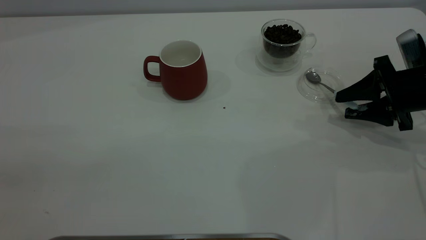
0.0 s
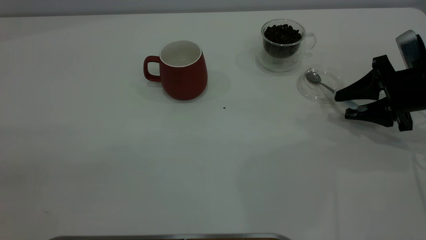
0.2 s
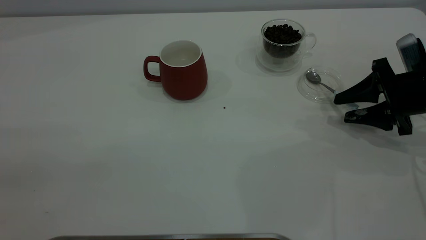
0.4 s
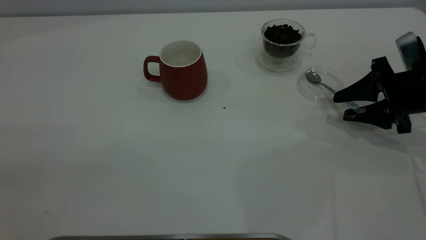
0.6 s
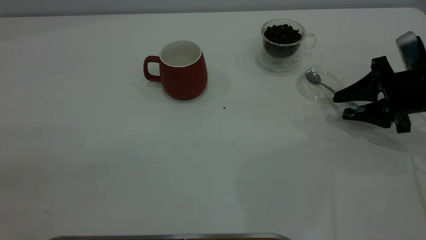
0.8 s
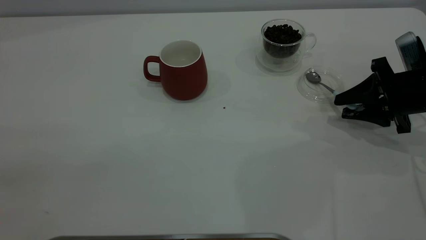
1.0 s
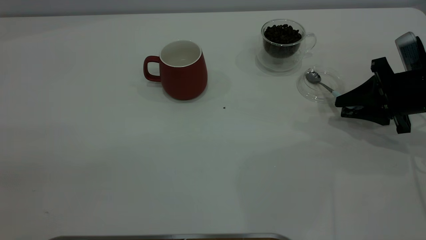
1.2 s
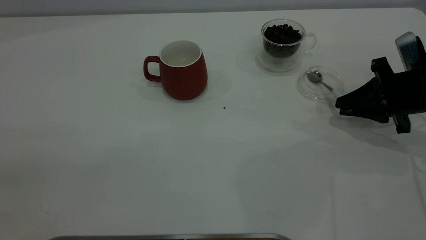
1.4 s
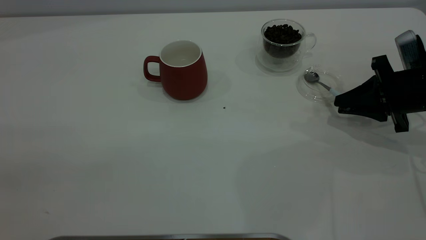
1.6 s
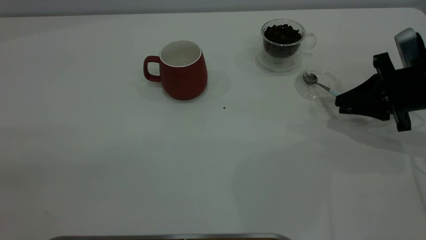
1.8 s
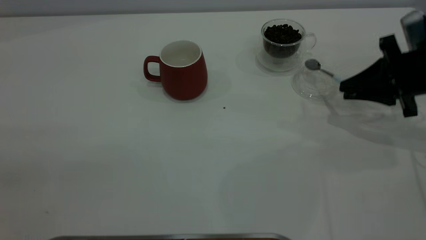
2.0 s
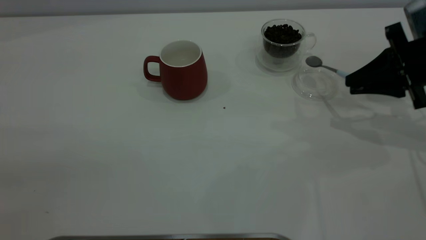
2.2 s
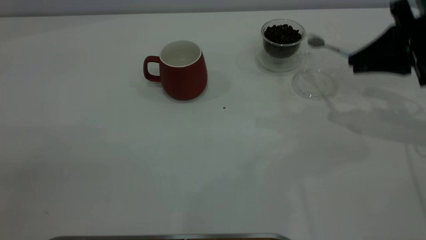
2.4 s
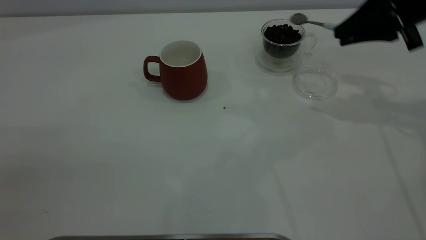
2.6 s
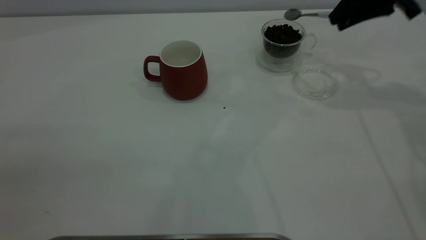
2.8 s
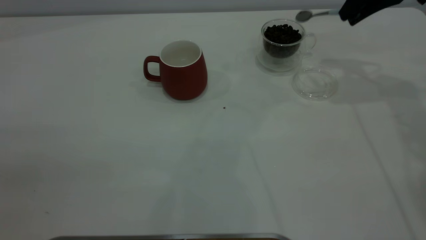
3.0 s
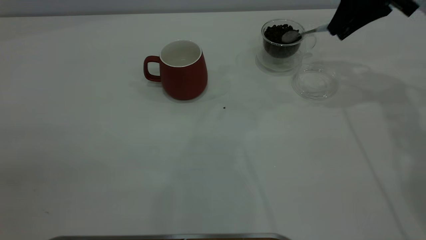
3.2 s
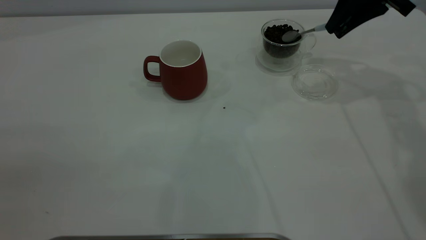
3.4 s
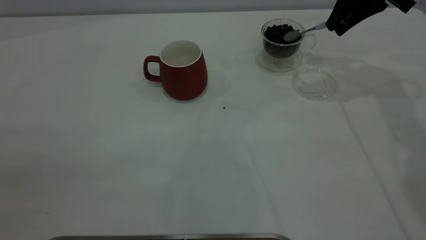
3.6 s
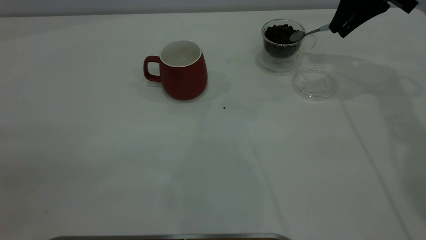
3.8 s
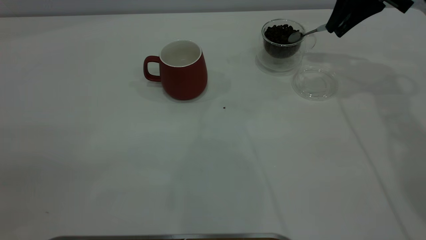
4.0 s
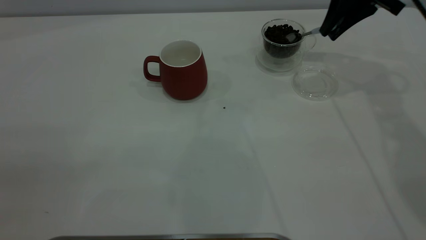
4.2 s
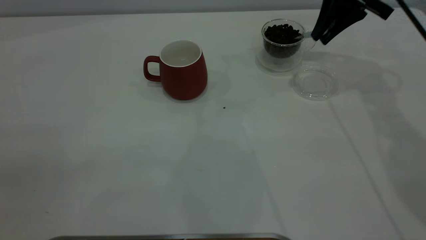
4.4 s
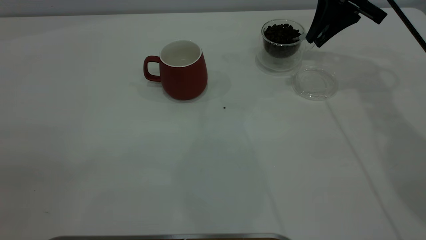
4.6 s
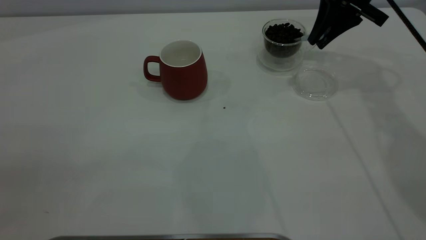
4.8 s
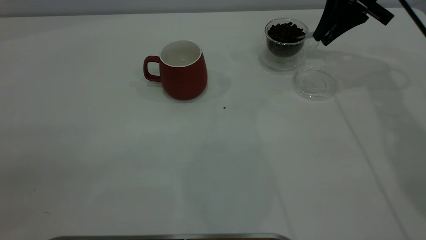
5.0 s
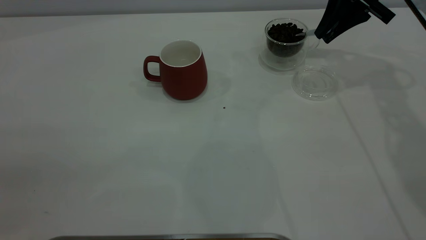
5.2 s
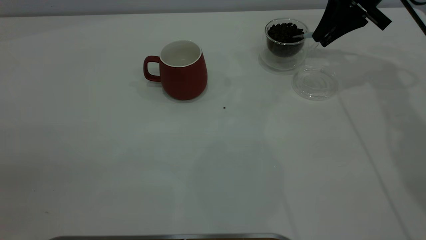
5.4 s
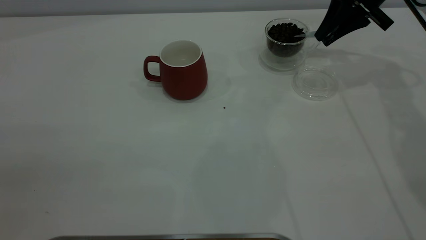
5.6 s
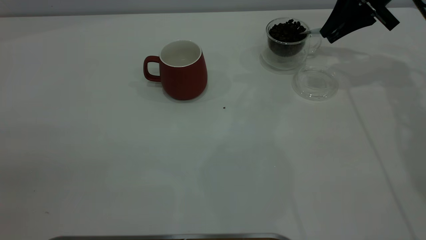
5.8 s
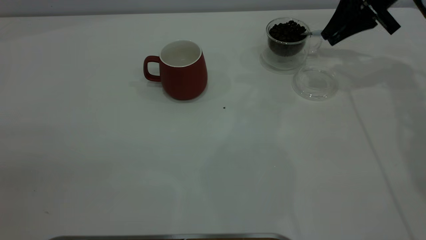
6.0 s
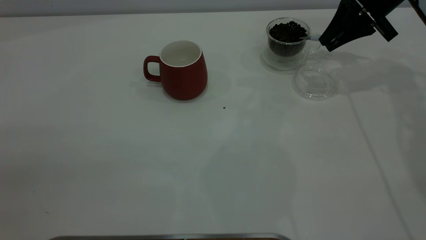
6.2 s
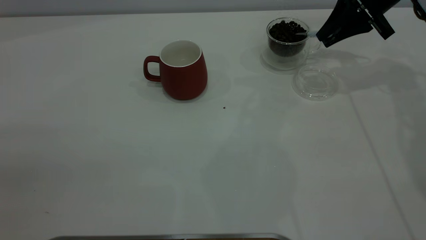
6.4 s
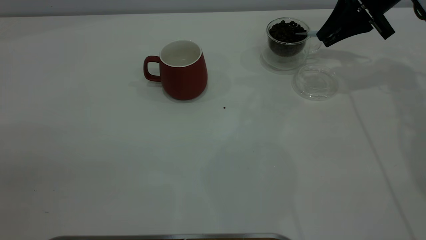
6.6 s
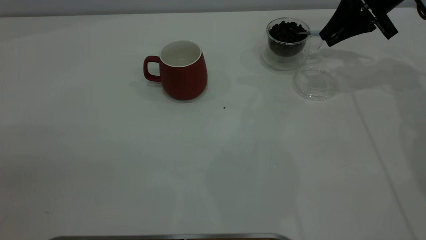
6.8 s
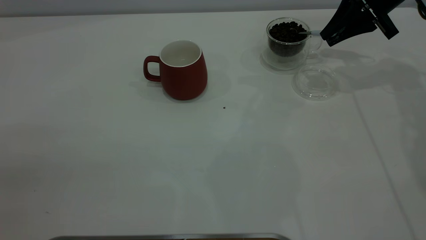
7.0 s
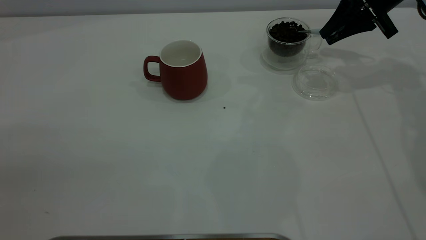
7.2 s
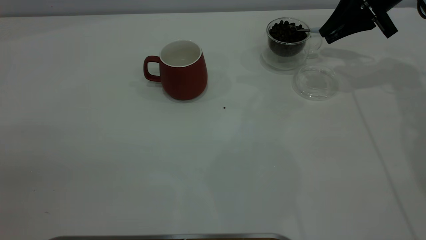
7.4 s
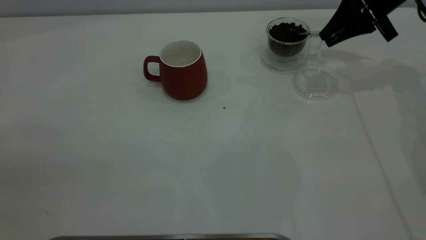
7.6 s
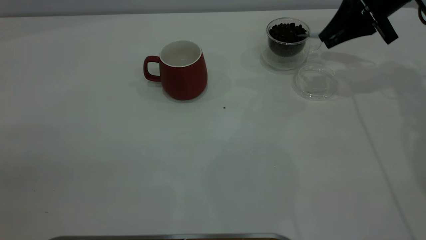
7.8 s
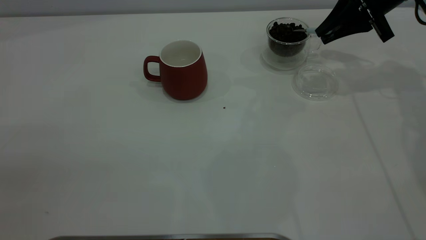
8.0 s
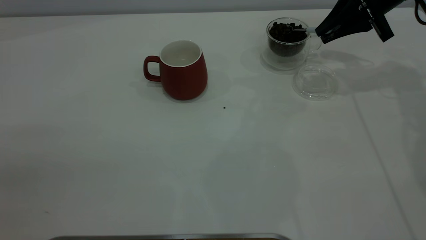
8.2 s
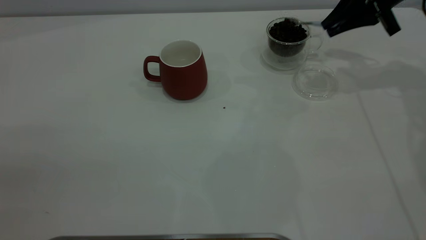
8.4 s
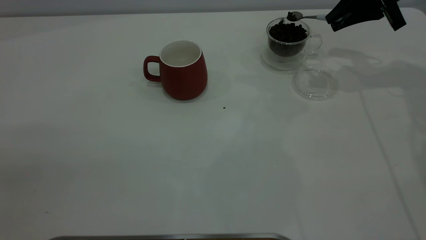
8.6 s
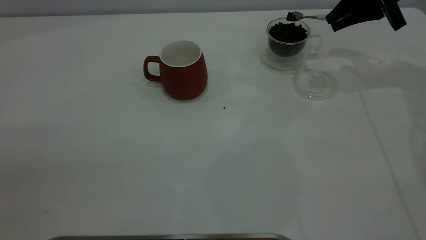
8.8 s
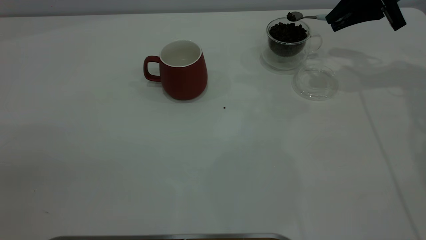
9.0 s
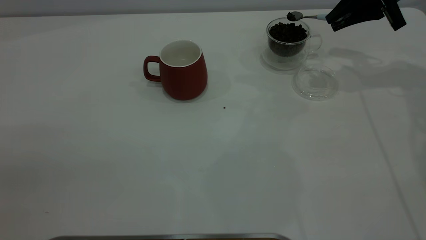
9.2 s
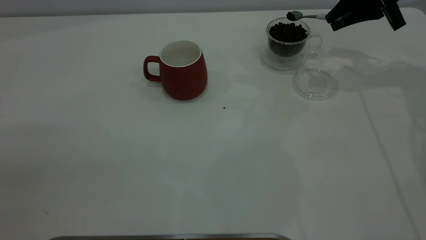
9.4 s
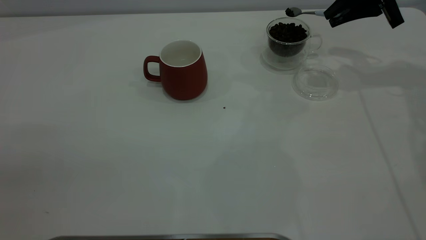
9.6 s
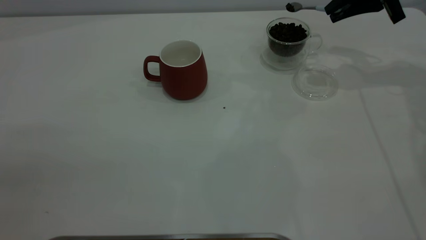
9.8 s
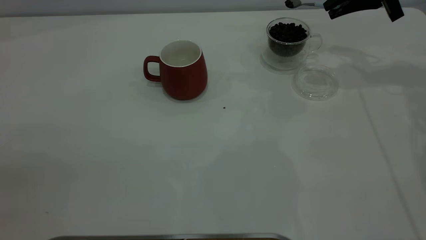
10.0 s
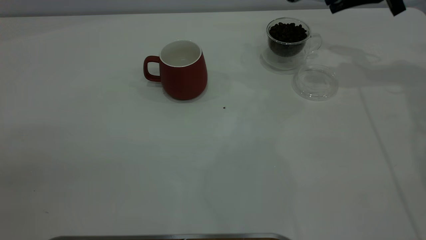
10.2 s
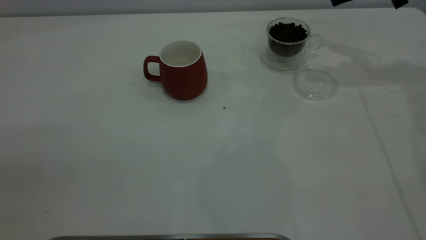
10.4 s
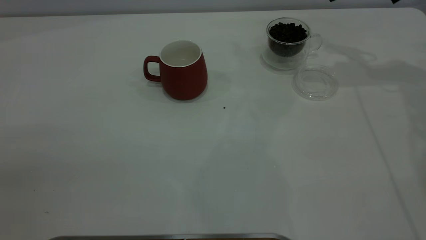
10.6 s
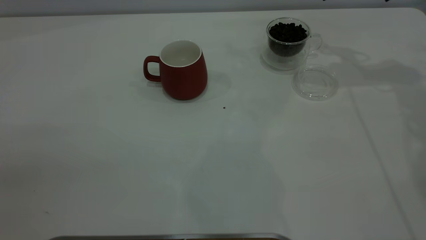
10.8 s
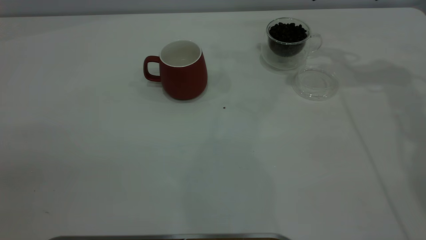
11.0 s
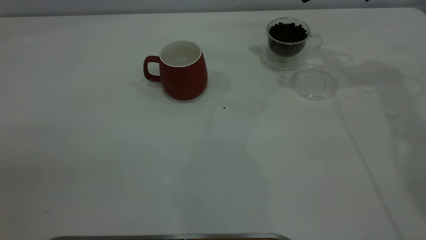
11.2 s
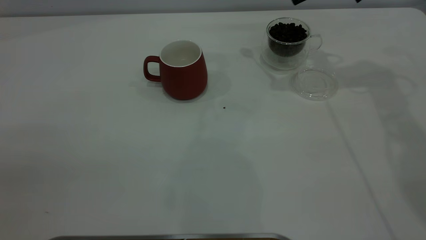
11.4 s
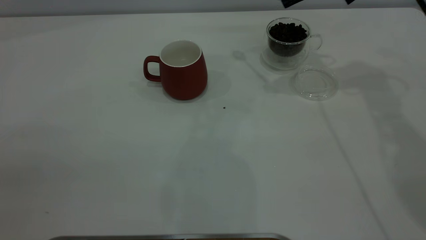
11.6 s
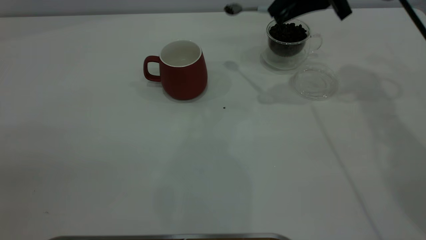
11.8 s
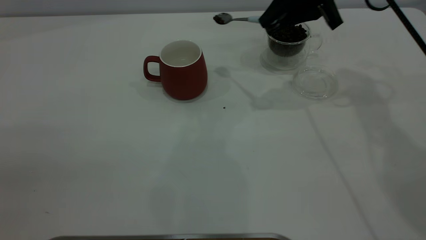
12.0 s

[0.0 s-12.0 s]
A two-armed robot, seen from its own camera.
Task of the whole recording: the left gripper place the red cup in the center of the table, the right gripper take the blue spoon from the cup lid and scoop out the coffee beans from the coffee cup and put them into the red cup, the right gripper put the spoon back into the cup lid.
Step, 0.0 to 2.0 s: Pick up the spoon.
0.0 to 1.6 s: The right gripper closes its fingers.
1.6 to 3.0 s: The right gripper goes approximately 20 cm upward and forward.
3.0 to 4.4 s: The right gripper moves roughly 5 cm.
4.4 to 6.0 s: The right gripper shifts by approximately 5 cm.
6.0 to 10.4 s: The grippers move only a little.
10.4 to 12.0 s: The right gripper is displaced to the left by roughly 10 cm.

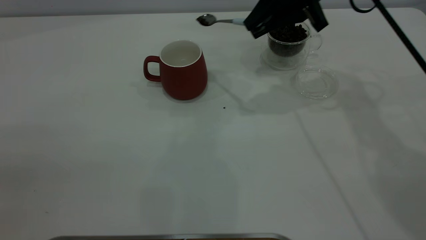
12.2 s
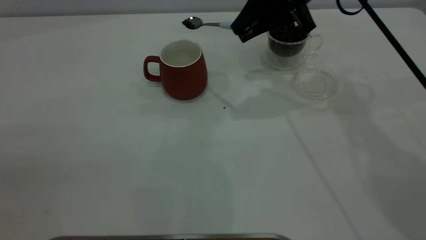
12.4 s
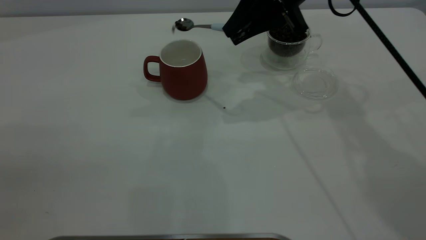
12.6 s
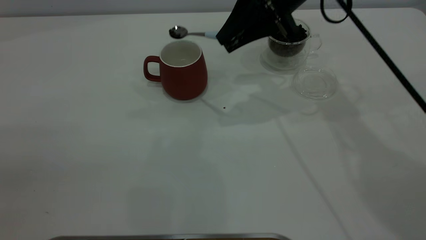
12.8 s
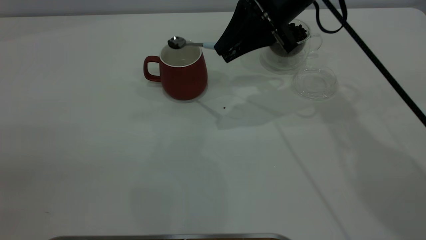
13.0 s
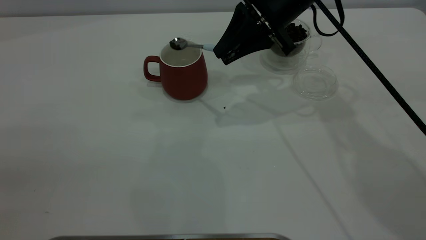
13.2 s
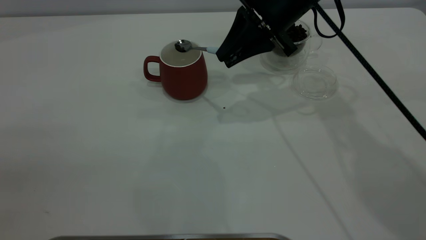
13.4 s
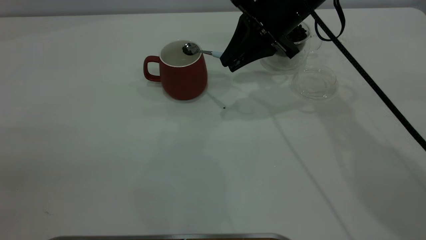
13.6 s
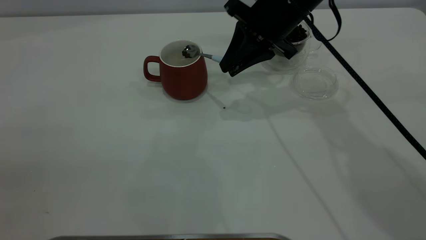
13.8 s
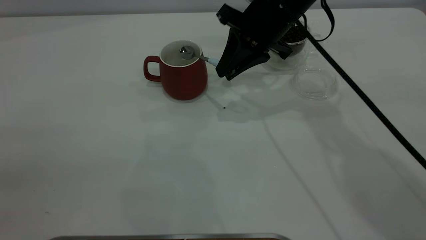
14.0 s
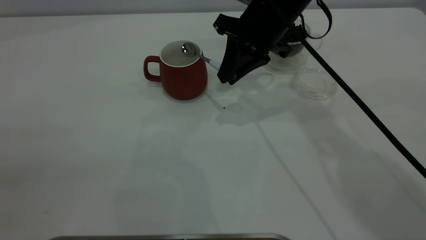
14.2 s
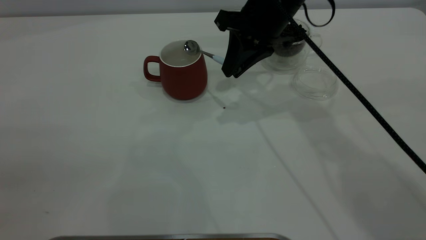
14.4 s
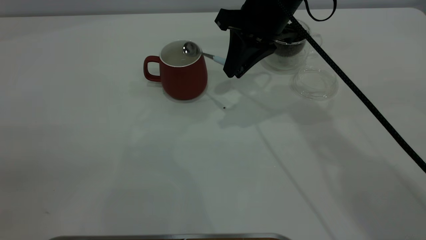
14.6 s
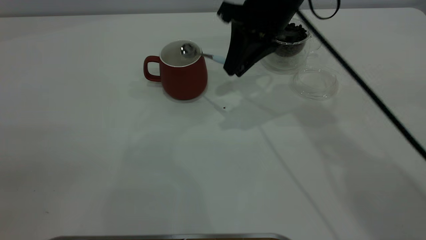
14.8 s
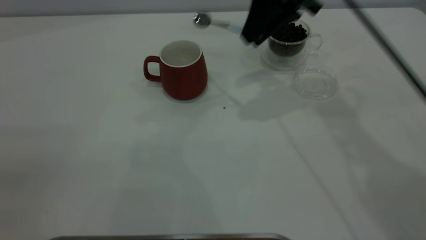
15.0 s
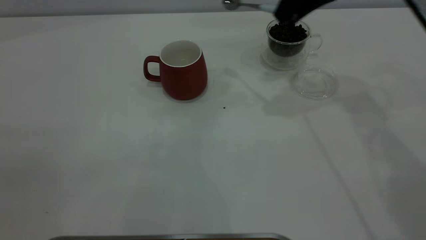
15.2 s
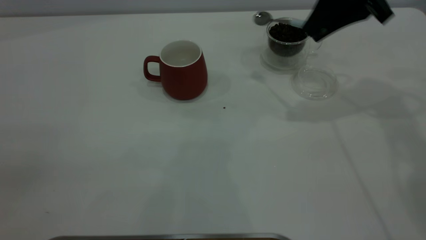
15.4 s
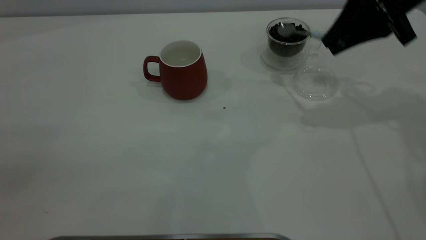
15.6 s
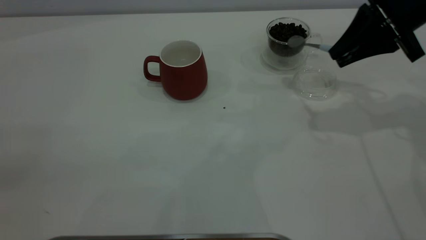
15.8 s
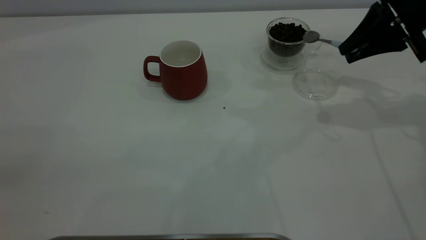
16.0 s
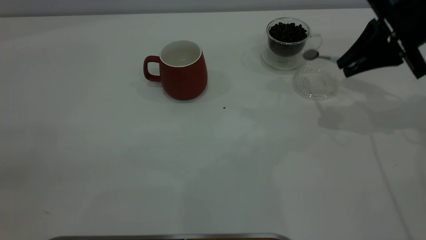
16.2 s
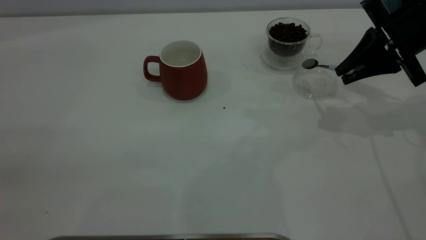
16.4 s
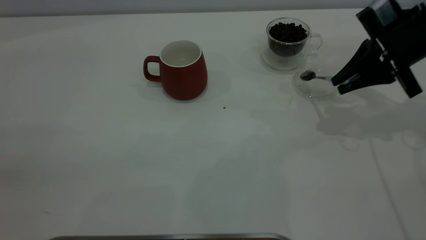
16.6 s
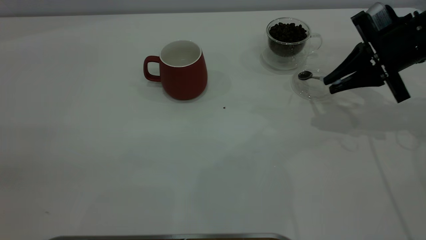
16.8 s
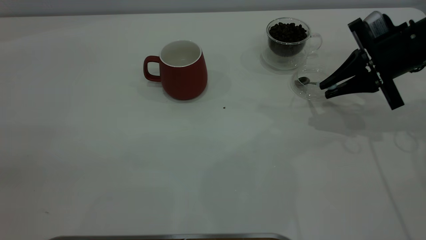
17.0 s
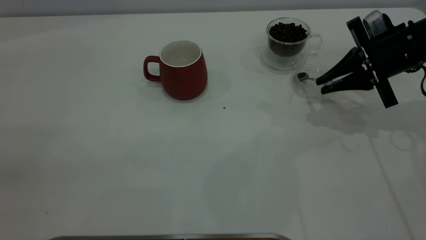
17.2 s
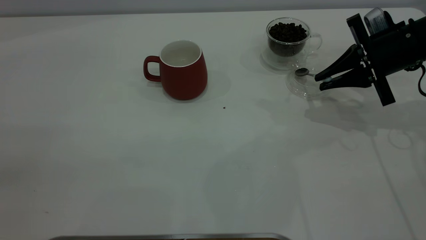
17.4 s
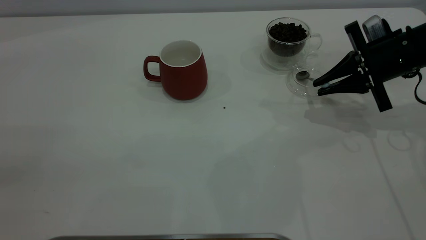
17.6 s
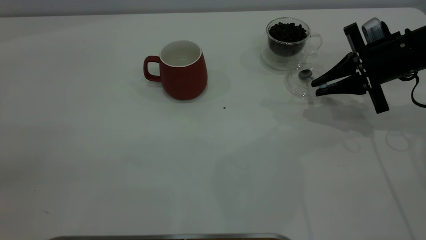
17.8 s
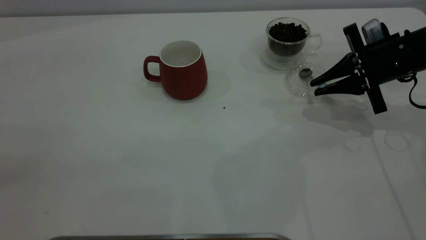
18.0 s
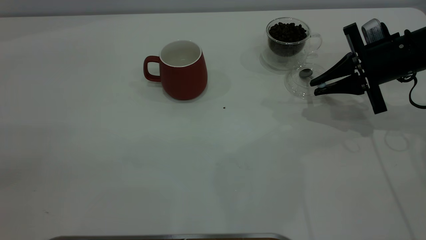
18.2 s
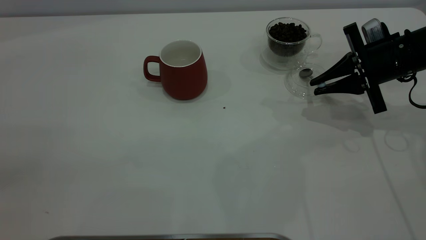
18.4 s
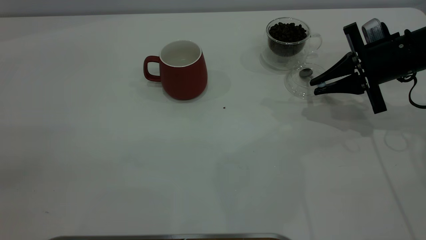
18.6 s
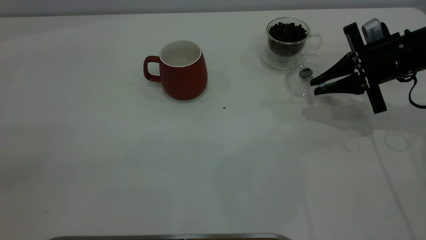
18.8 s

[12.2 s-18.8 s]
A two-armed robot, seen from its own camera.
Task of the whole recording: the left gripper place the red cup in the center of the table, the right gripper take the blue spoon from the cup lid and scoop out the coffee beans from the coffee cup and put them into the red cup, the right gripper put the spoon back into the cup lid.
Step, 12.2 to 14.8 s: Scoop a spoonful of beans into the cup.
12.2 to 13.8 s: The right gripper changes place by about 5 cm.
13.8 to 15.4 s: The right gripper goes roughly 15 cm to the right and upward.
15.4 to 17.2 s: The right gripper heads downward, covering approximately 10 cm.
17.2 to 18.8 s: There are only small adjustments of the grippers.
